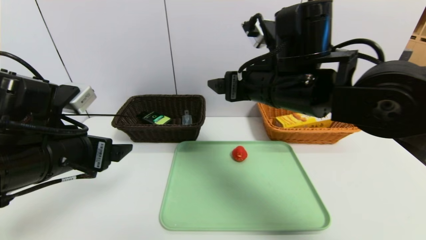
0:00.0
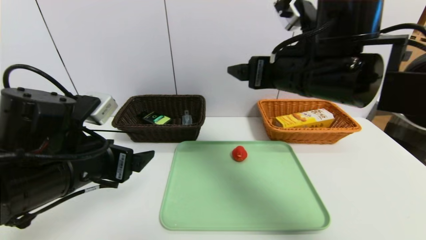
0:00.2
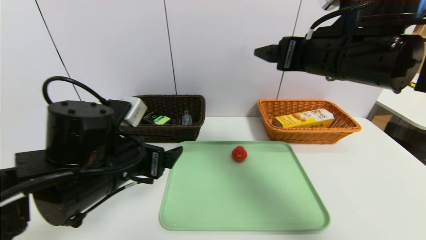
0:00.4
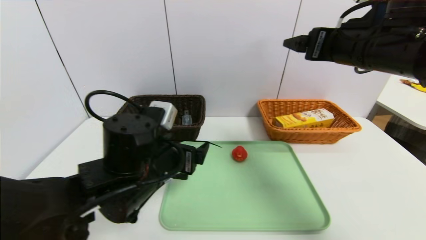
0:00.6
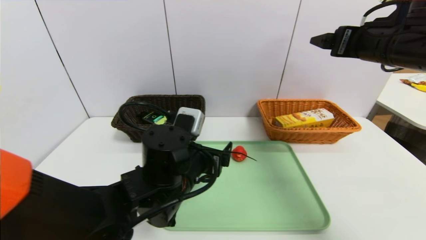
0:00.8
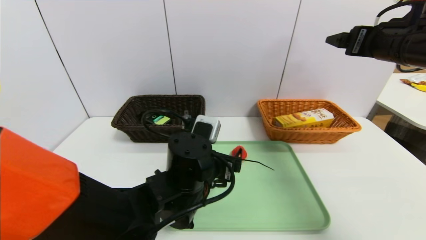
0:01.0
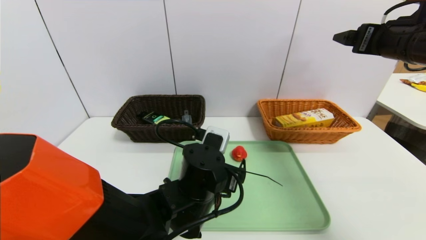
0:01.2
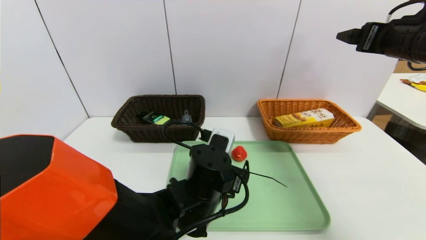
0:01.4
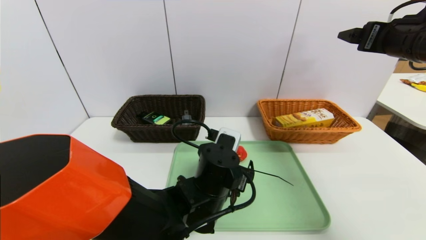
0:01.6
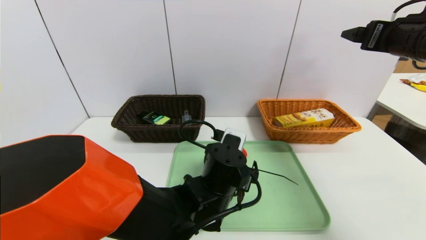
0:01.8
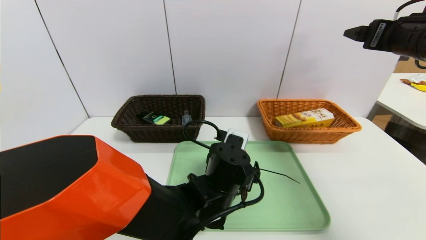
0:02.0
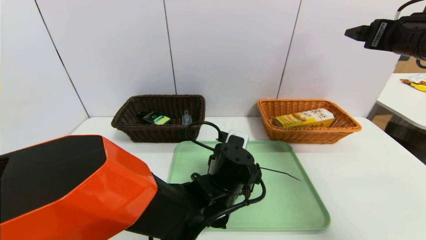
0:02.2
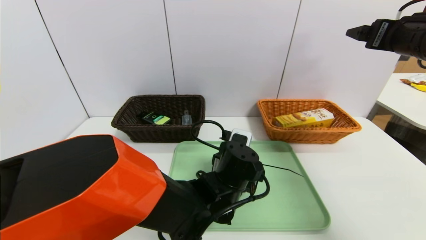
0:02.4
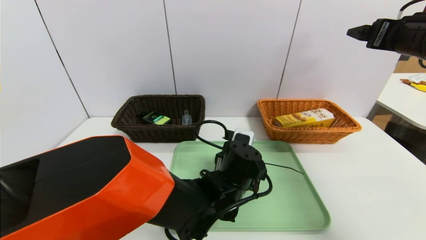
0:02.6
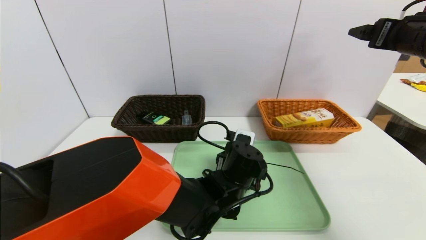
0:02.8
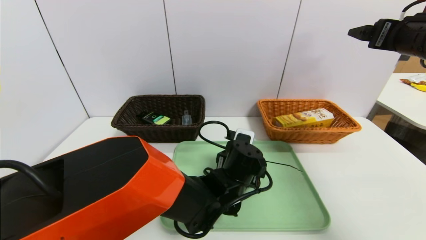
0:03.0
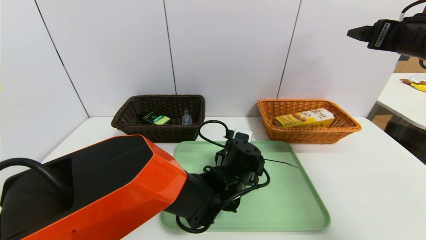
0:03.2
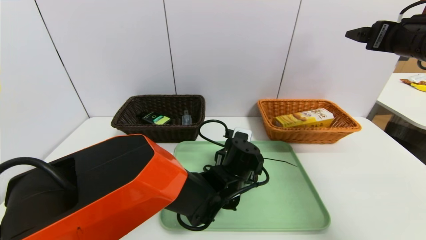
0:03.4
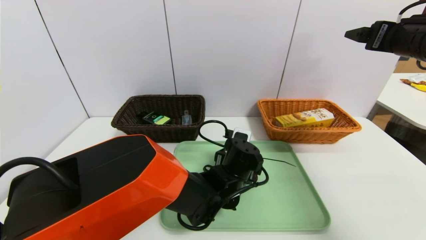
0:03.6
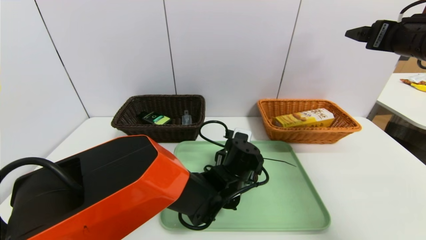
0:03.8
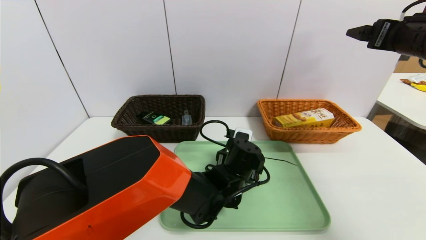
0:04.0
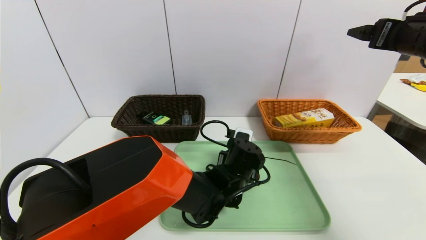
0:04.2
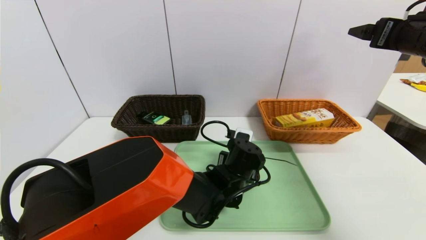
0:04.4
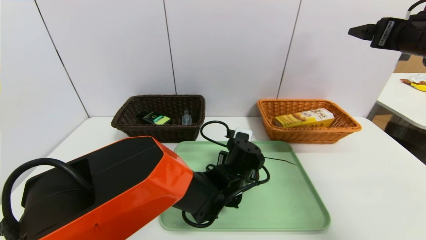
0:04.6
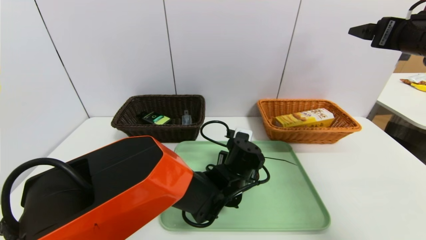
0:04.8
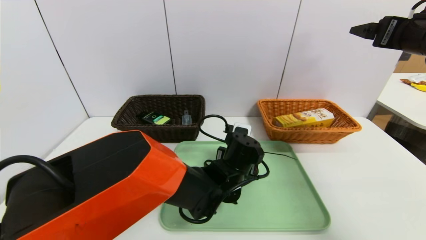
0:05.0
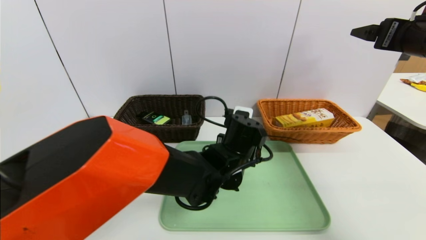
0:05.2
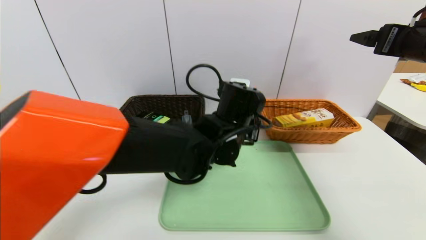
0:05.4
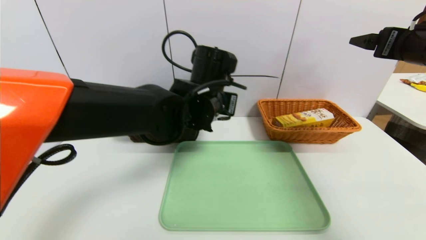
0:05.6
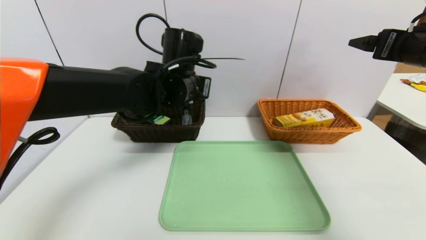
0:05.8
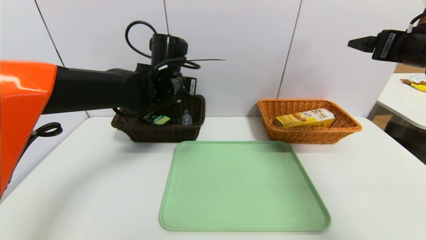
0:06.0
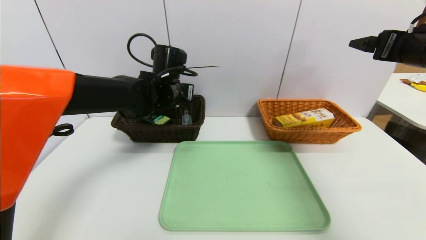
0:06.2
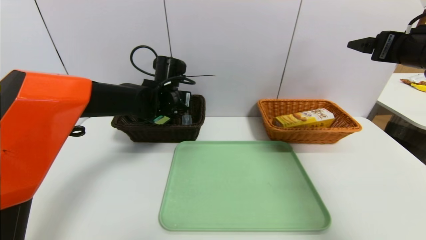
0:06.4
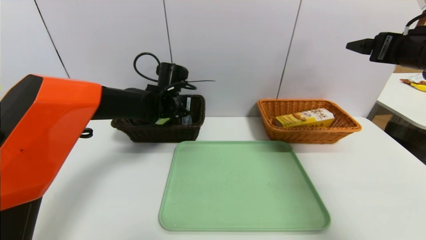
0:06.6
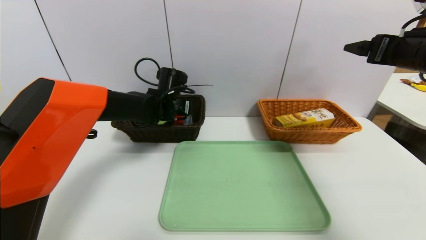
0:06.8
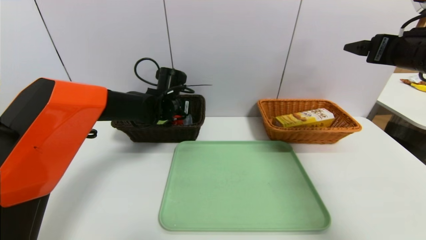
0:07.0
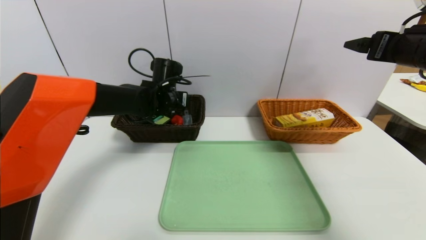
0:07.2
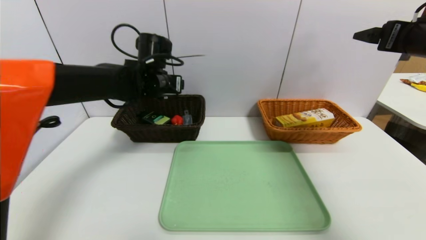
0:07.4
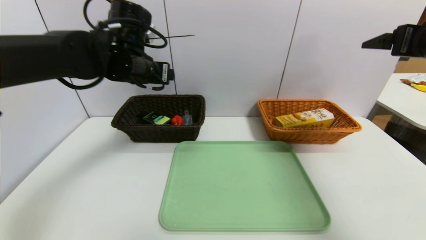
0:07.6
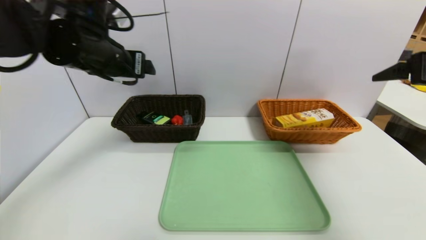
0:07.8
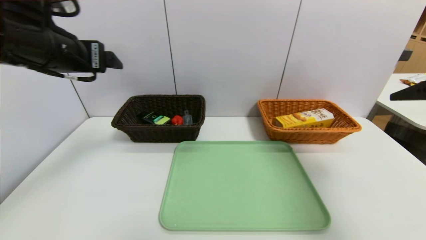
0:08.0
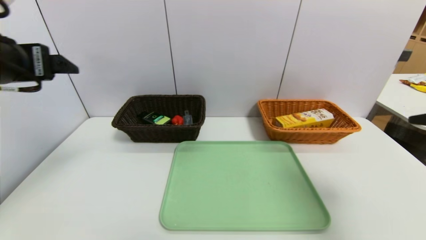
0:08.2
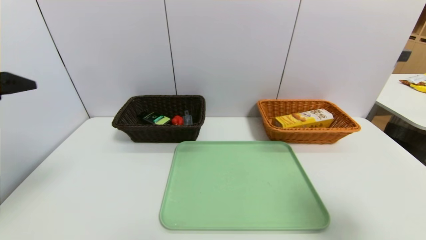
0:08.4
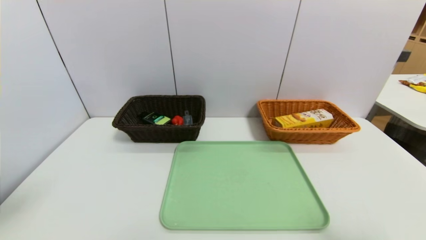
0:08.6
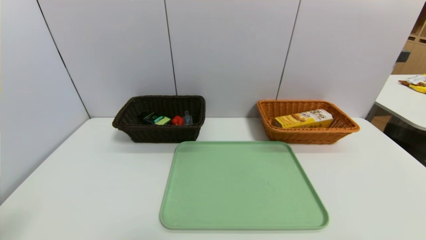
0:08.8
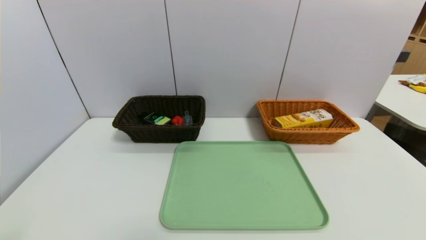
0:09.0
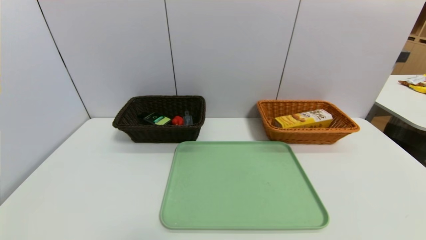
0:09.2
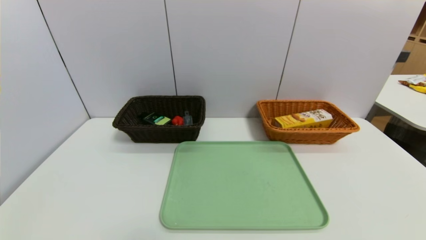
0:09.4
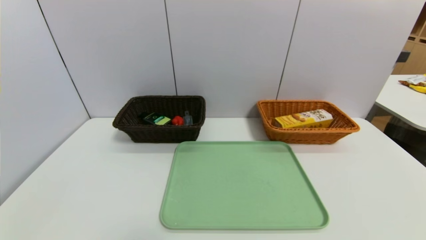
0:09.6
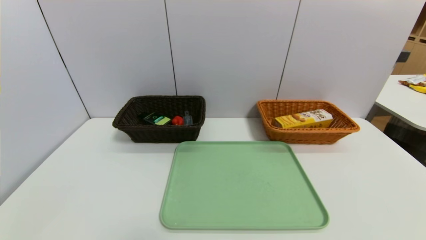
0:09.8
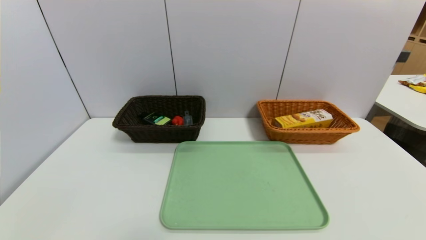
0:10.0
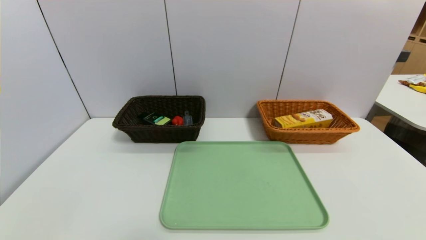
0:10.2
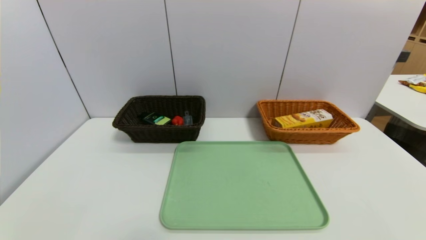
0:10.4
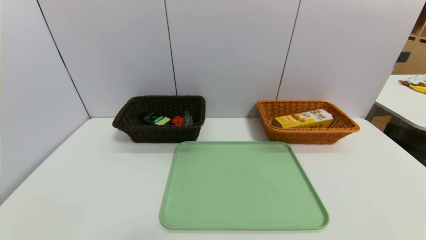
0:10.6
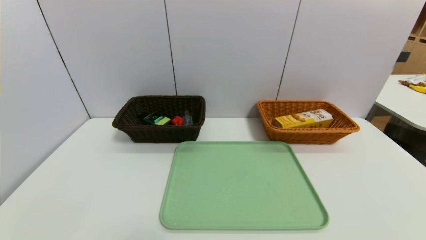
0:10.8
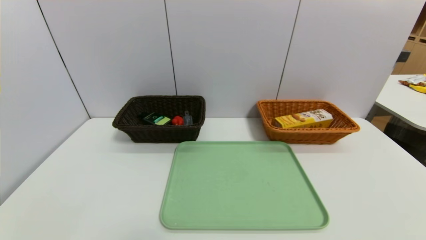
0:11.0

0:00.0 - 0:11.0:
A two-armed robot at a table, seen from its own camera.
Task of the whole recording: place the food in the right basket with the right gripper, and place the non food items in the left basket with the left gripper.
Step, 0:00.0 - 0:07.2: Grasp the red duck and put it in the left basket.
0:00.0 - 0:01.6: The left gripper travels to the right and downward by some 25 cm. Meanwhile the right gripper is displaced to the right by some 20 cm.
0:01.6 - 0:03.2: The left gripper ends up some 5 cm from where it was.
0:03.2 - 0:04.8: The left gripper closes.
0:04.8 - 0:06.2: The left gripper moves upward, to the left and forward, approximately 25 cm.
0:06.2 - 0:07.8: The right gripper ends up about 5 cm from where it was. The left gripper heads upward, backward and to the left, covering about 15 cm, and opens its fingers.
0:07.8 - 0:09.4: The left gripper travels backward by some 35 cm. Meanwhile the right gripper travels backward and downward by some 35 cm.
